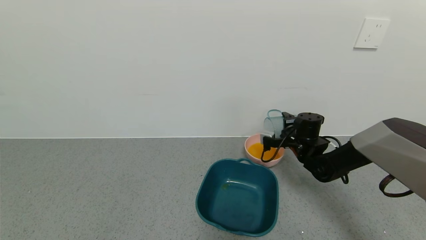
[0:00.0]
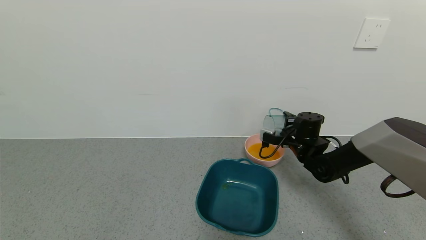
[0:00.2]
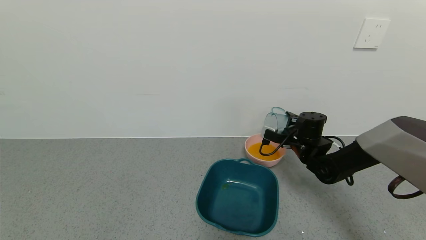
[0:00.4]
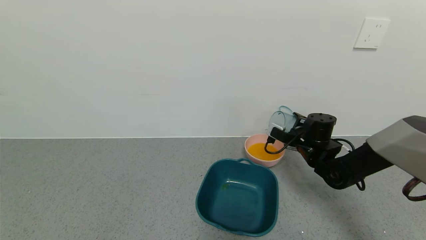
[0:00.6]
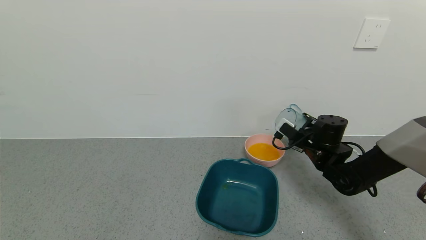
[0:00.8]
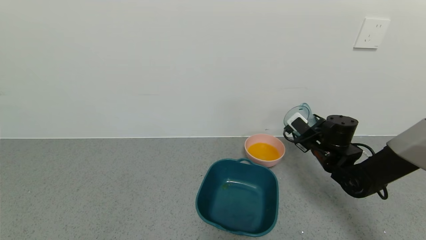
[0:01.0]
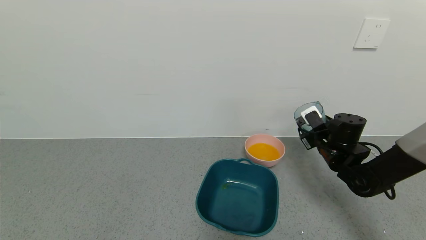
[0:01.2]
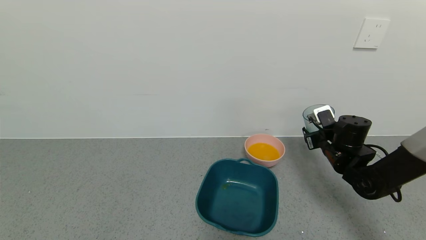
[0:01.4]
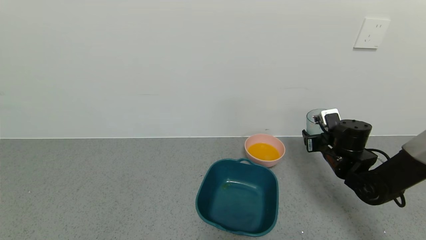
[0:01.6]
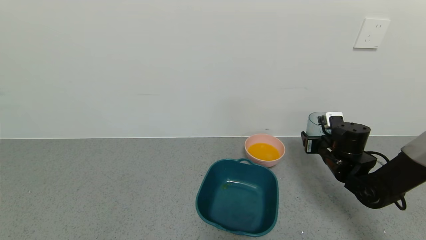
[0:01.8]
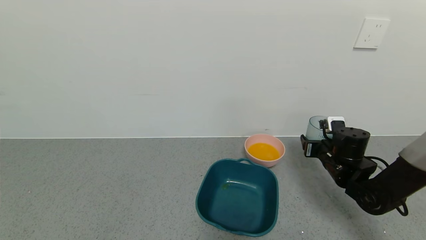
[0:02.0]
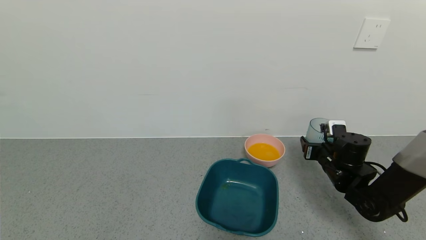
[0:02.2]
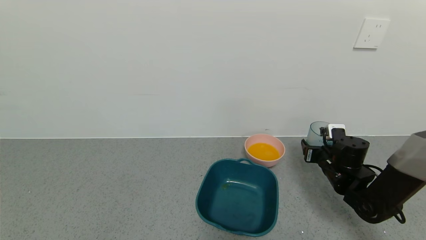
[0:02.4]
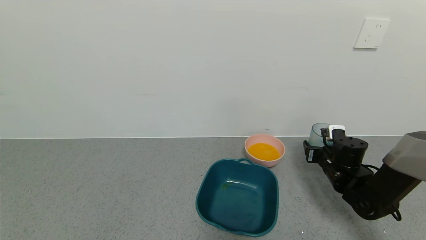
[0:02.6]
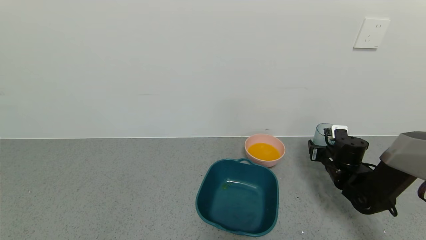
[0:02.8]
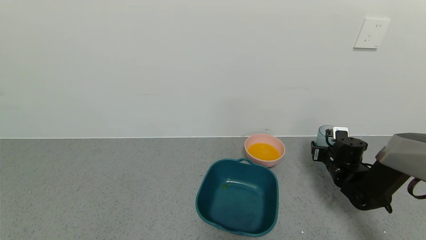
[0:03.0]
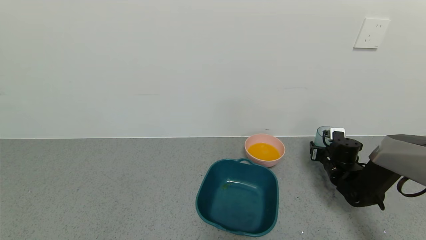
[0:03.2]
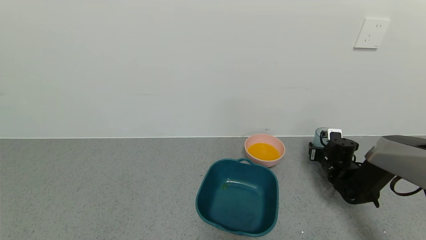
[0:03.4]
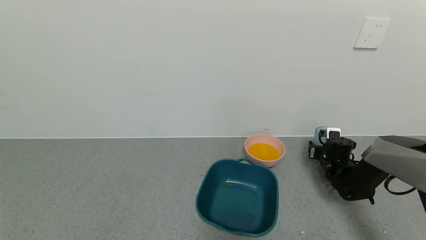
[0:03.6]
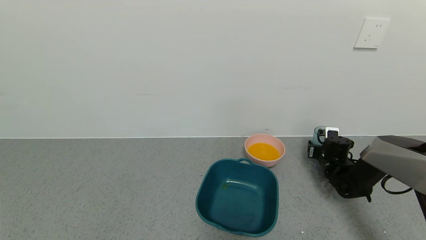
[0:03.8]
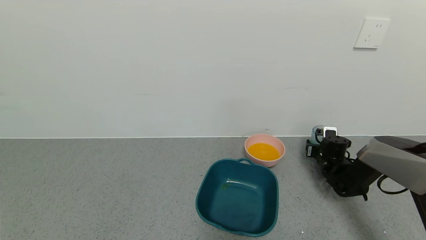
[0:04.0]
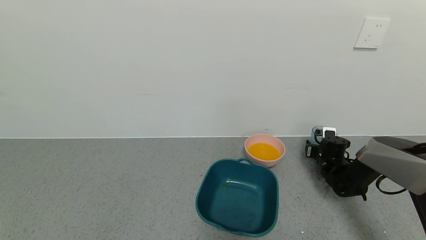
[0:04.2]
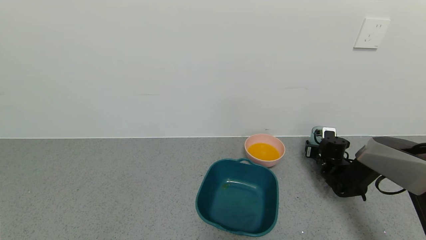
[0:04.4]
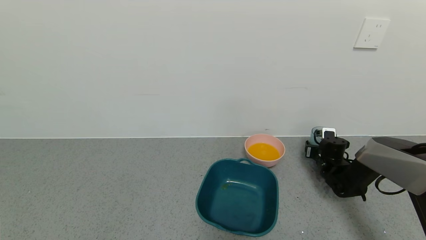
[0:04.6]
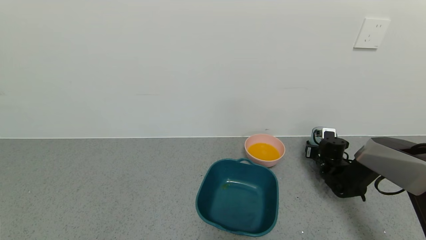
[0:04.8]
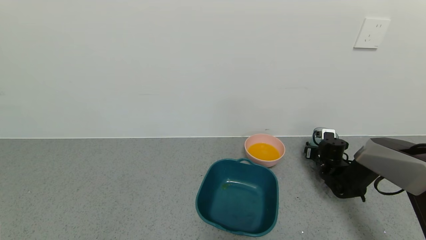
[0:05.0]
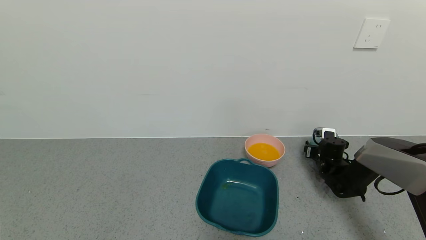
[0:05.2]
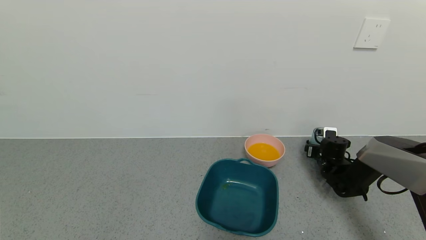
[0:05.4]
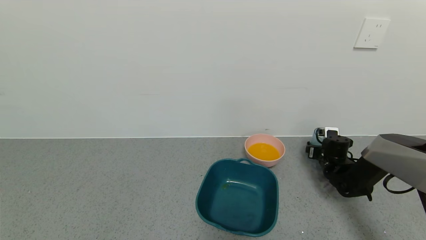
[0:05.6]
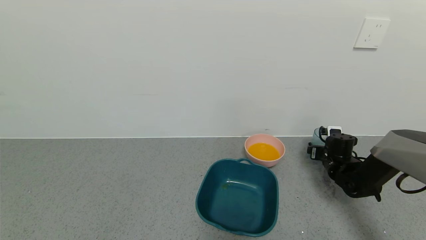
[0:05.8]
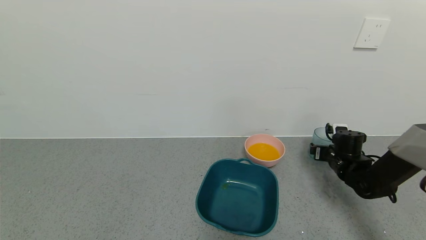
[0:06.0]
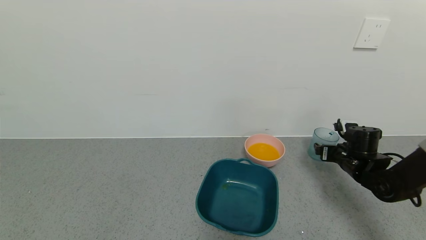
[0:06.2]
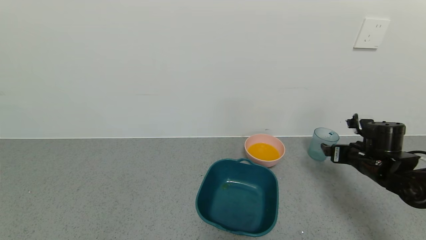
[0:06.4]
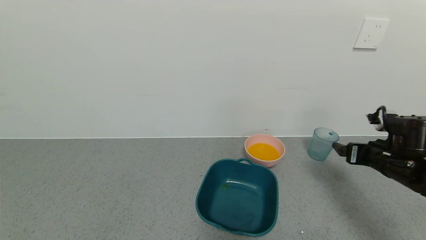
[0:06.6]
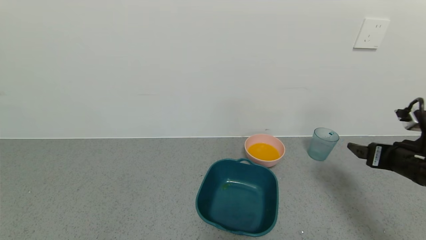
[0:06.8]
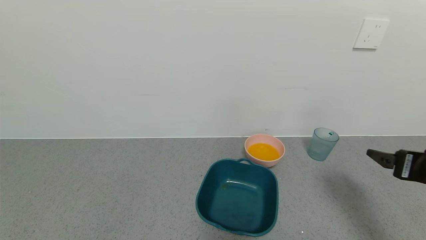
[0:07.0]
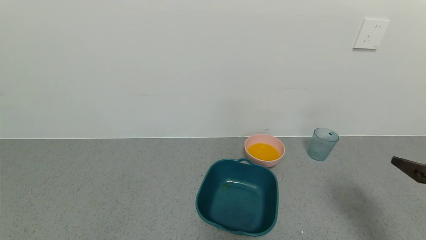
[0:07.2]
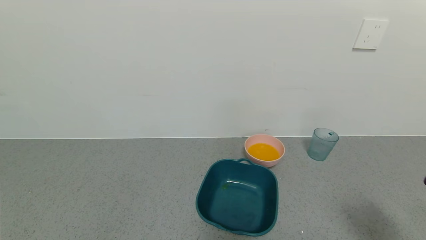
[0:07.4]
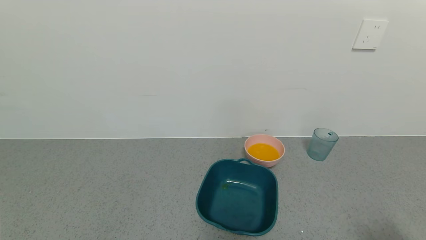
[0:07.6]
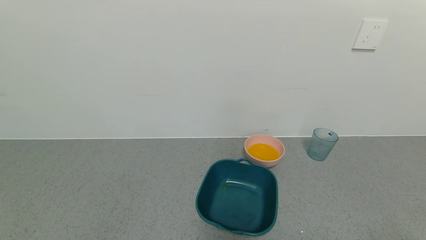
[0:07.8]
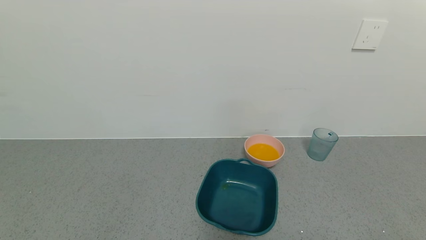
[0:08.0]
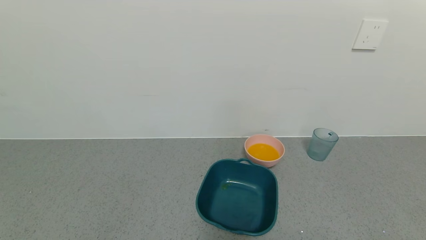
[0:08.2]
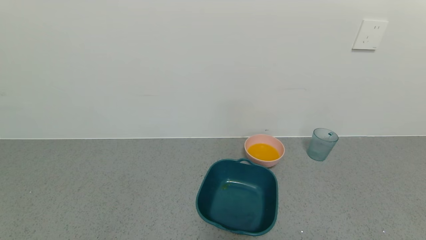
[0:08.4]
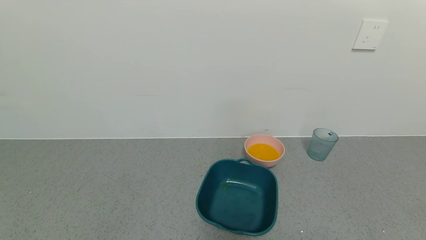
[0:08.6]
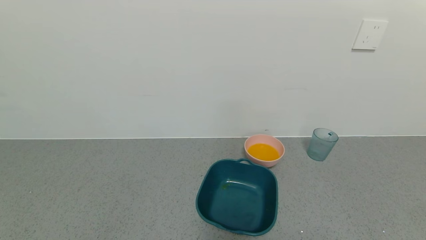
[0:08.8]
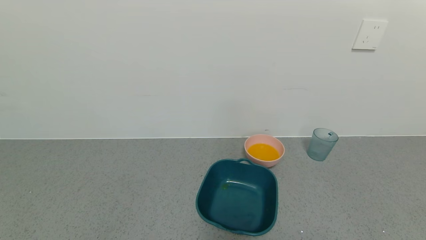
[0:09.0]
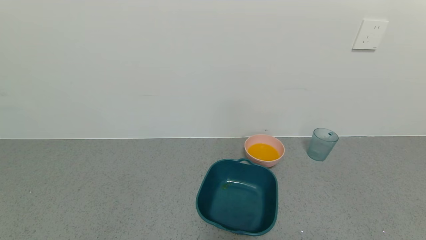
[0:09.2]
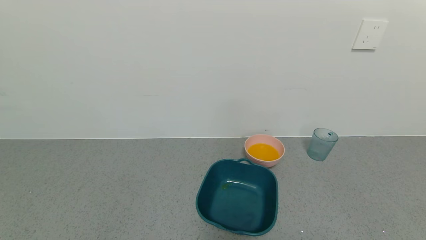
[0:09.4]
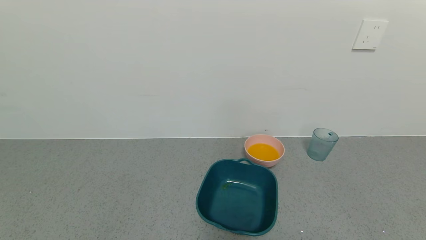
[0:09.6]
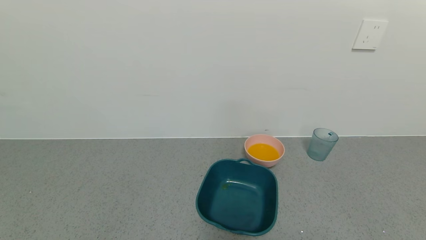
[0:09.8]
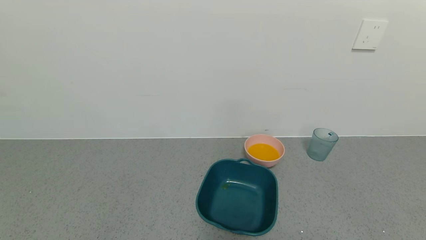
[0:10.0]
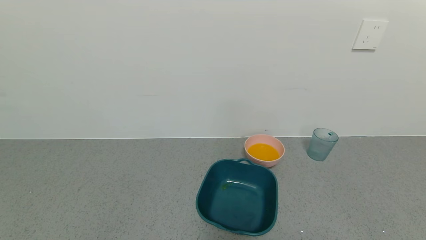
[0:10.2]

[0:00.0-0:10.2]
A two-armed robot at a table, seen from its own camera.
Task of the whole recording: use a gripper to pick up the cup and pour the liquid into a bowl or tray.
Step, 0:00.0 to 0:05.0: Place blue cup with orange juice on the table with right gripper.
0:00.0 to 0:01.4: The right gripper goes approximately 10 cm to the right and backward.
0:01.4 to 0:03.0: The right gripper goes roughly 10 cm downward.
0:03.0 to 0:04.4: The right gripper goes approximately 5 cm forward.
0:04.4 to 0:05.8: The right gripper opens.
0:05.8 to 0:07.2: The right gripper moves backward and upward, about 35 cm.
0:07.2 to 0:08.8: The right gripper travels backward by roughly 20 cm.

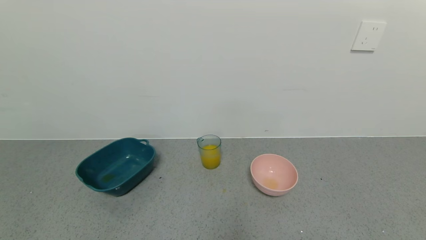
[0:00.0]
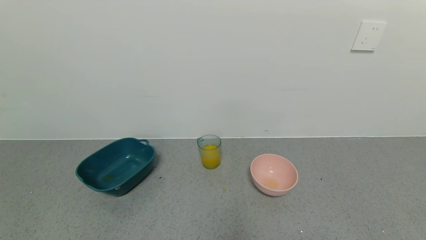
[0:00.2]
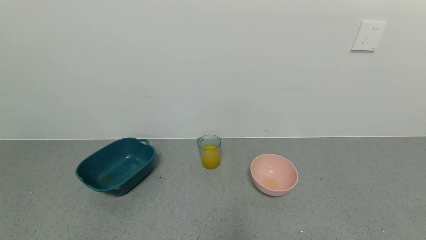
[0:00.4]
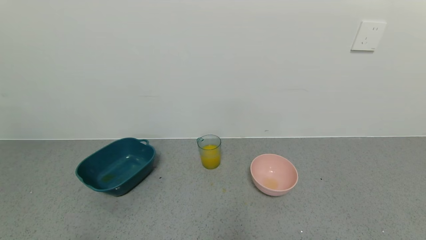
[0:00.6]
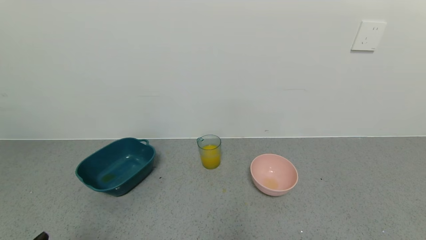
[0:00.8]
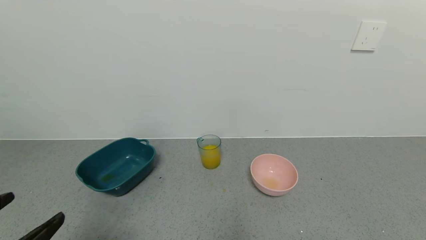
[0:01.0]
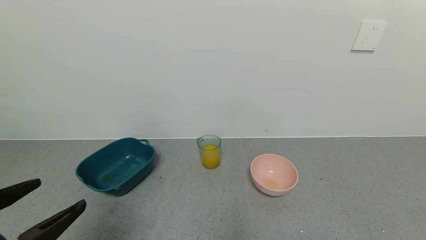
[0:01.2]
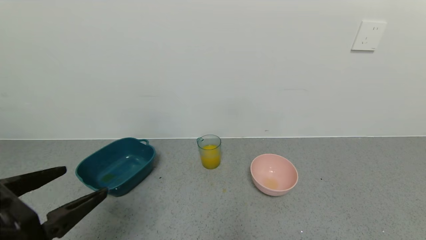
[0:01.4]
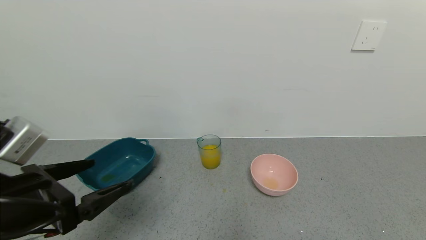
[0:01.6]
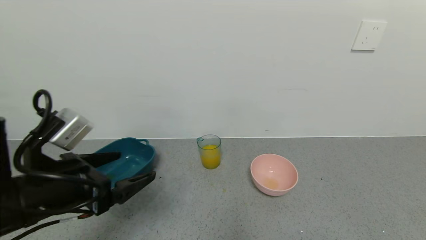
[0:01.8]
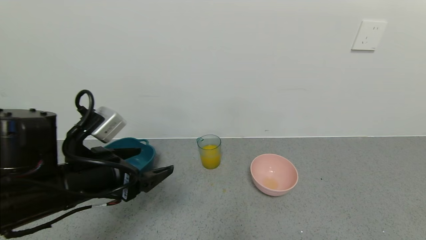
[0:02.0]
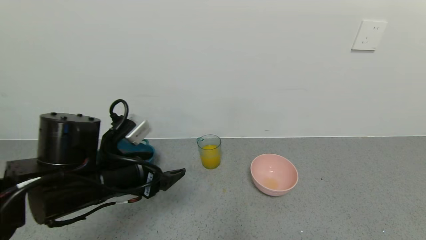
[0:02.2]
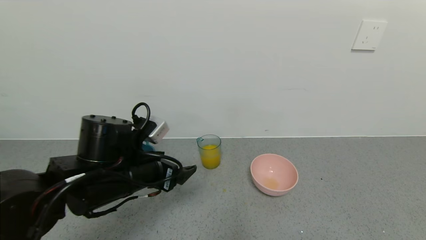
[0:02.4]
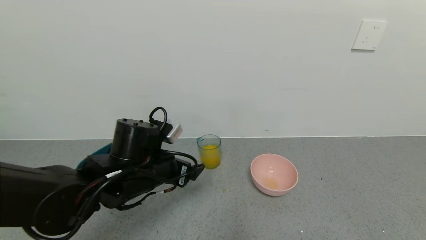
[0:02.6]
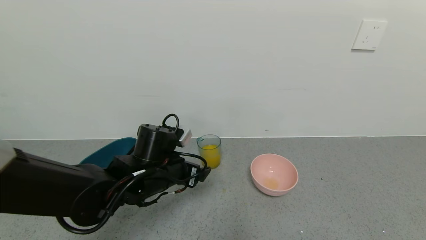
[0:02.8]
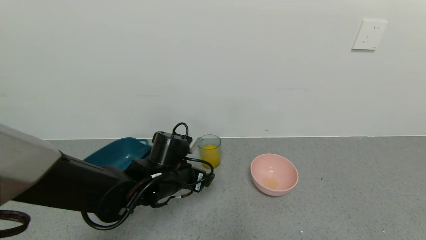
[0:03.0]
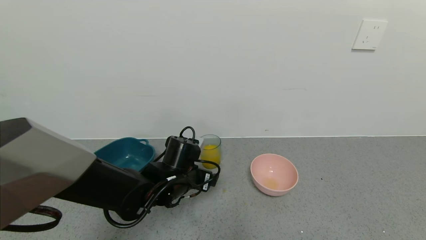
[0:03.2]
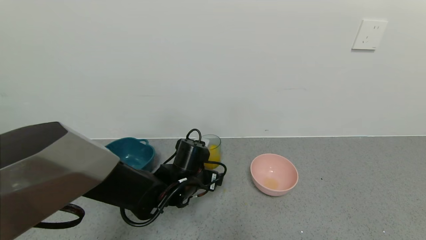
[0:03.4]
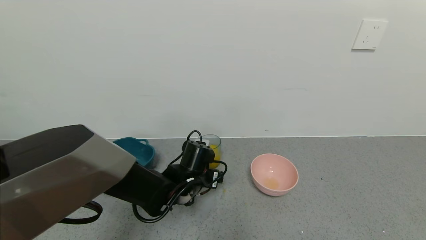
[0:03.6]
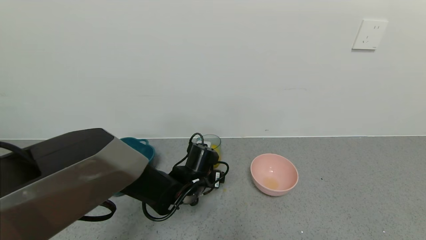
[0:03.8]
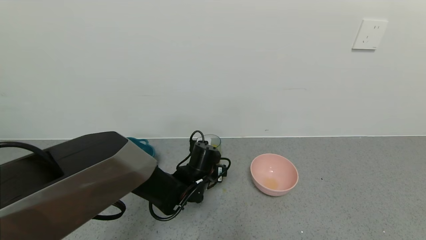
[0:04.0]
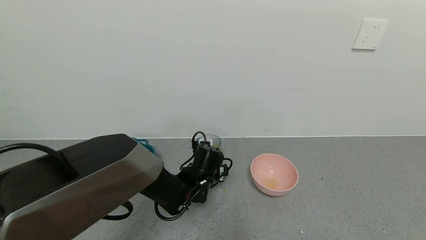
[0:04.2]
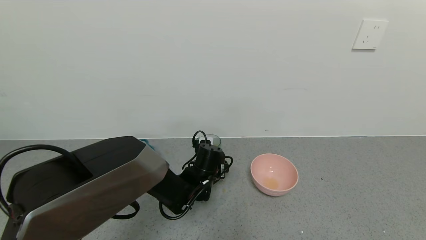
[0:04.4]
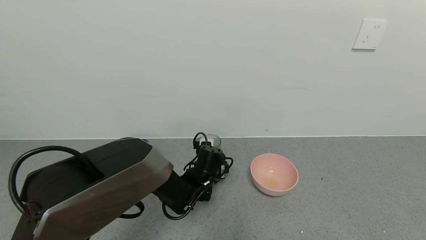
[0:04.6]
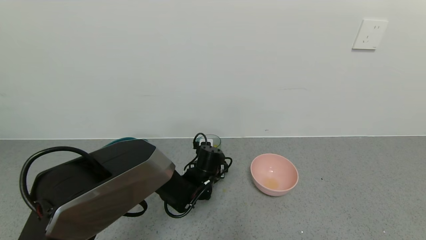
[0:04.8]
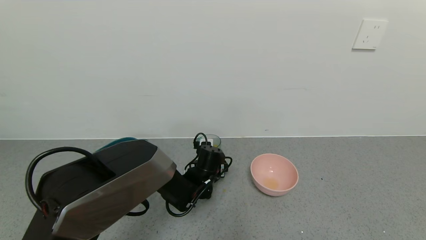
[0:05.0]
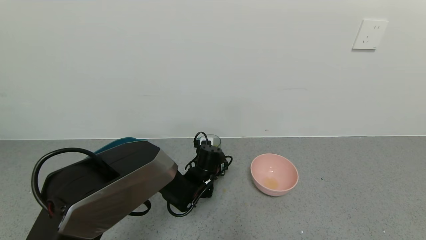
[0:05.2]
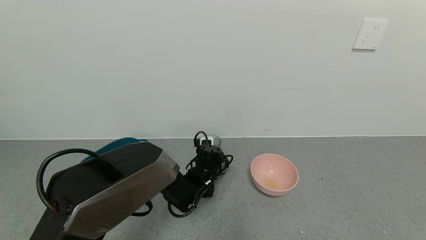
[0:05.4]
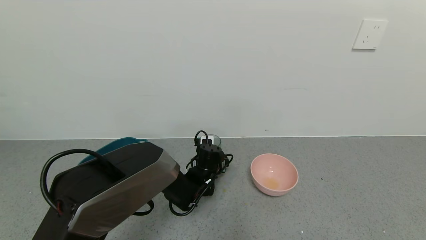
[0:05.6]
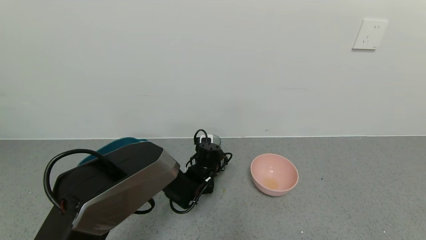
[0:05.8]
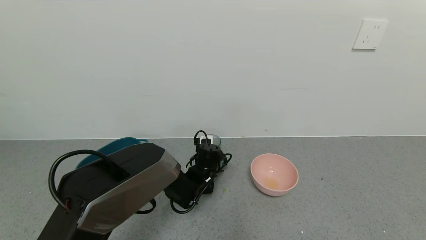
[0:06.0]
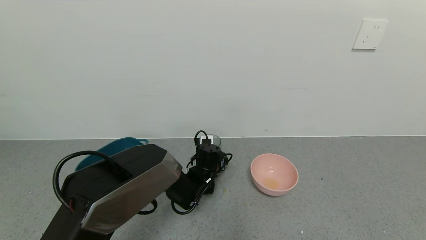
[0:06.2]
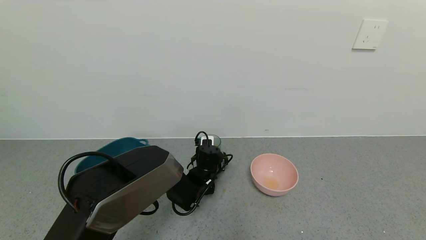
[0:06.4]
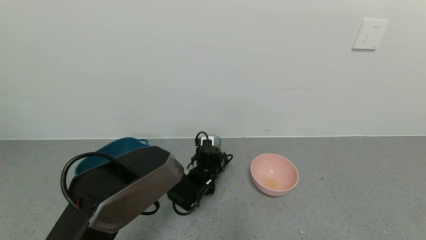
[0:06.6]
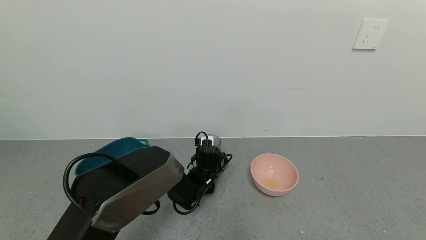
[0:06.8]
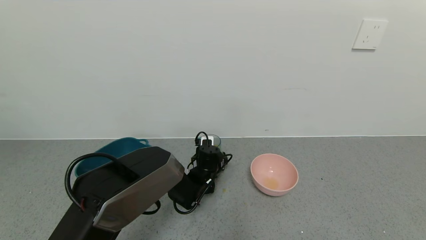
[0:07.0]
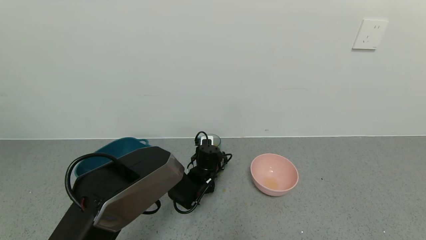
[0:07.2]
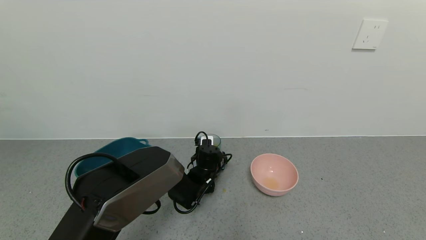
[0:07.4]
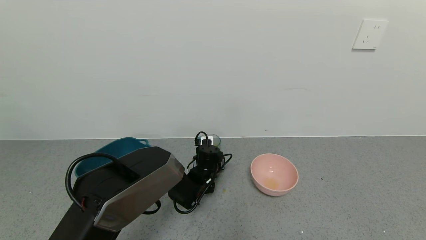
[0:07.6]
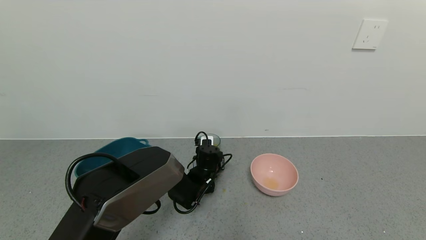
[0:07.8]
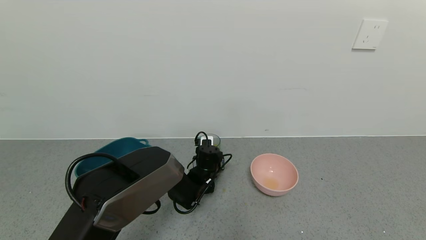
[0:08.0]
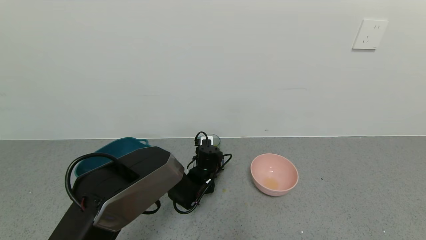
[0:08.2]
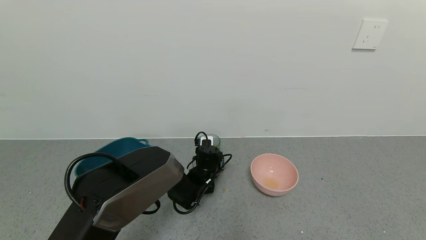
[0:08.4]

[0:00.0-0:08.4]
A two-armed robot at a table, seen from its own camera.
Task of the whole recording: use a gripper to pick up the cup and pour the liquid into a bowl or tray.
0:00.0 to 0:01.4: The left gripper travels upward and forward by some 20 cm.
0:01.4 to 0:02.8: The left gripper moves forward, to the right and downward, some 25 cm.
0:02.8 to 0:04.2: The left gripper is displaced downward, to the right and forward by roughly 15 cm.
0:04.2 to 0:05.6: There are only small adjustments of the grippers.
0:05.6 to 0:07.0: The grippers stay close to where they were, moving slightly.
